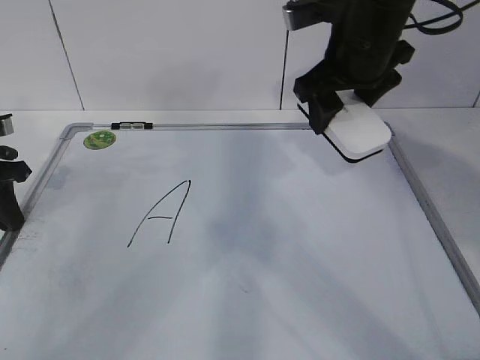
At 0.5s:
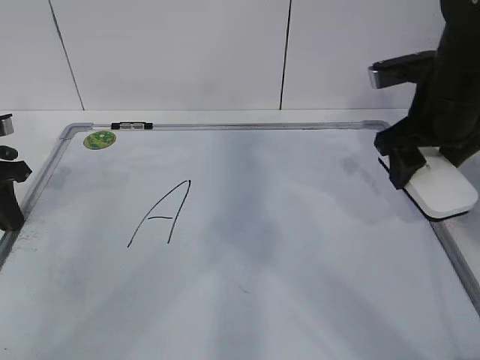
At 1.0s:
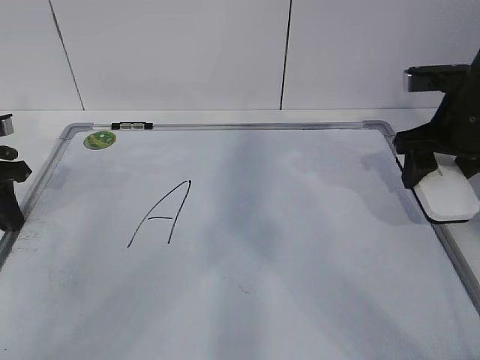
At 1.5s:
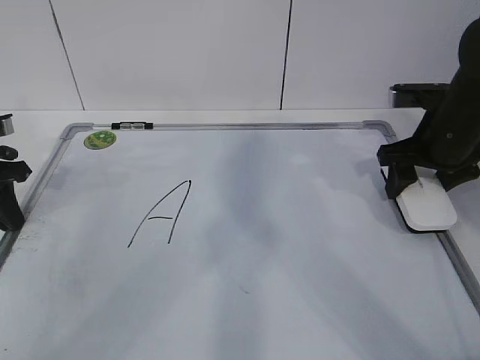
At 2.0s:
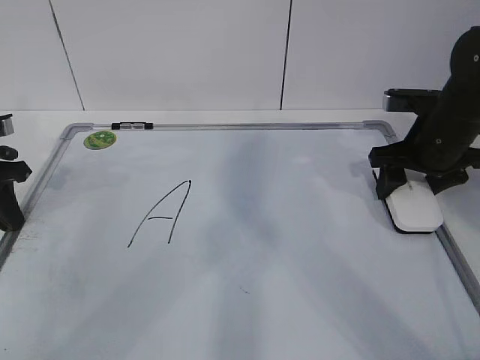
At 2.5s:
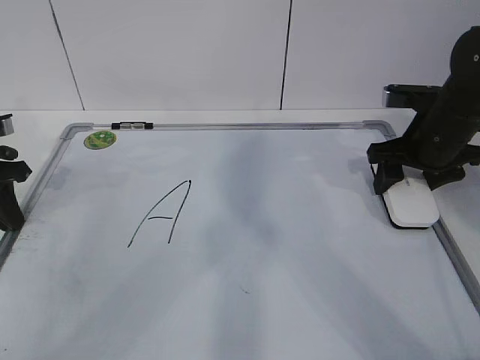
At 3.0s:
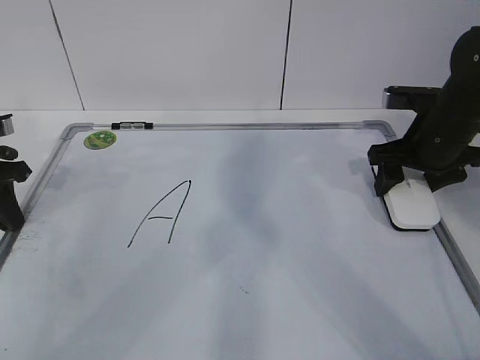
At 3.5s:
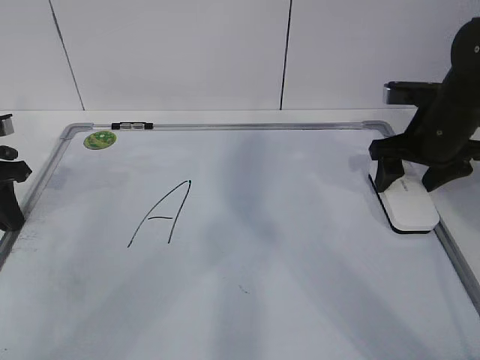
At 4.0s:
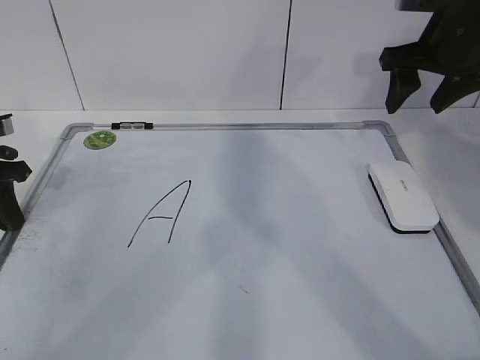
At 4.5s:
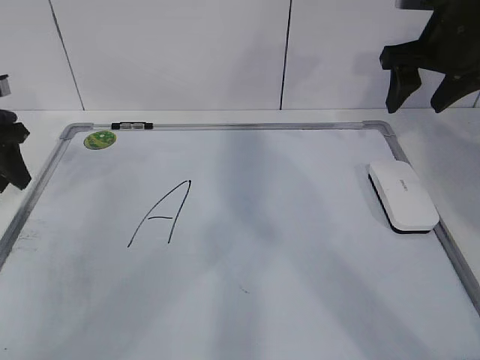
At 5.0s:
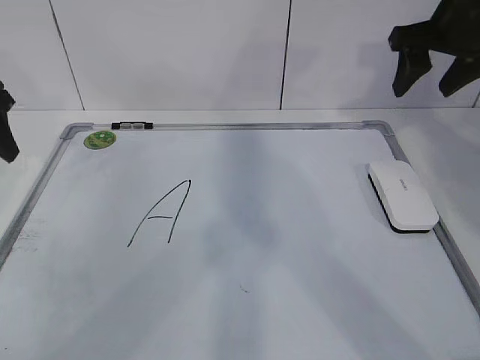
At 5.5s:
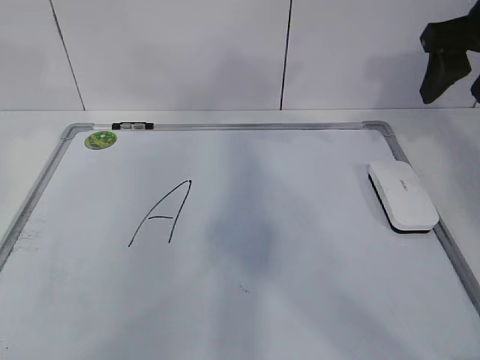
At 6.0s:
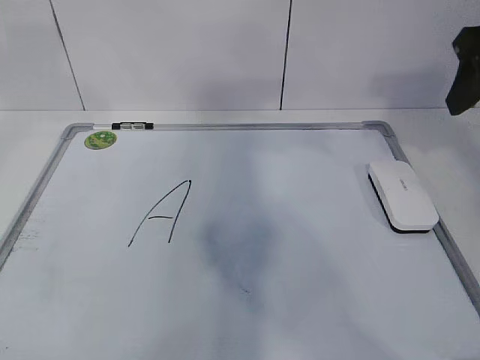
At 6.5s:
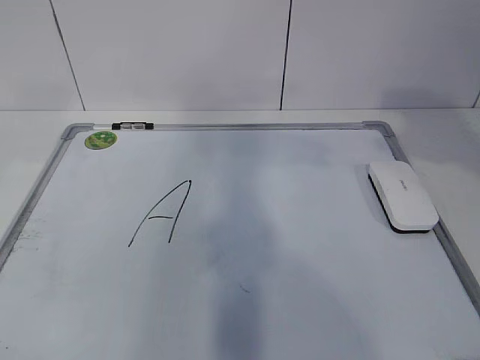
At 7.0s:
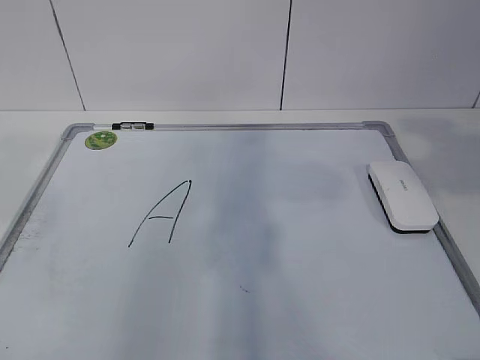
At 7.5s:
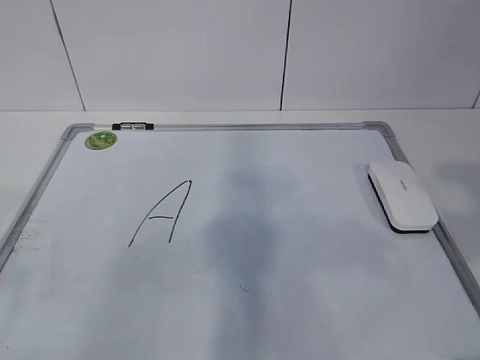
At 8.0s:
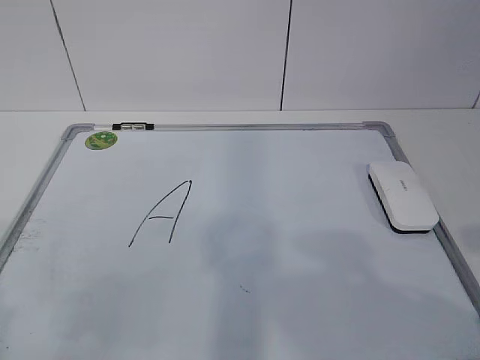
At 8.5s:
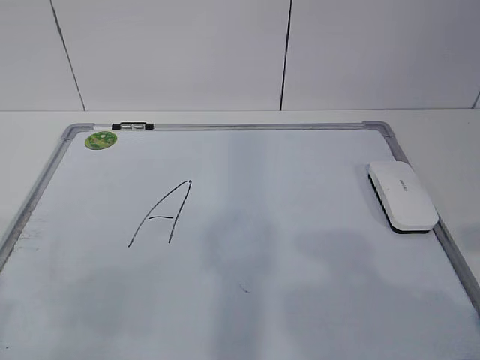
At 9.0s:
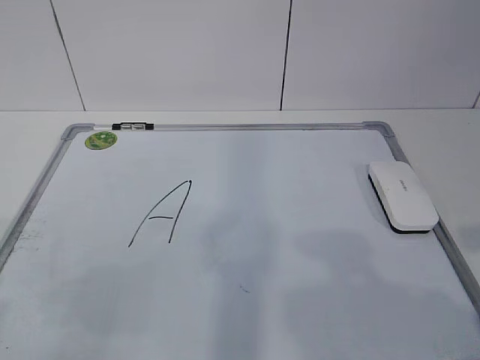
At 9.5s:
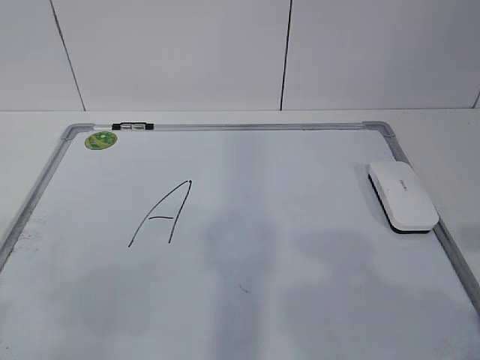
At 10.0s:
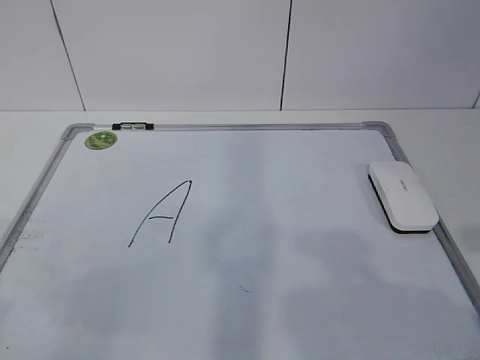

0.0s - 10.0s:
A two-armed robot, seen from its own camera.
Task of the whole recording: pick up the eraser on the blackboard and erase the letter "a".
0.0s - 2.0s: The right gripper heads to the right and downward, covering approximately 15 cm.
2.0s - 4.0s: The right gripper shifts approximately 10 cm upward, and opens, then closes once more.
4.0s - 6.0s: The left gripper moves upward, roughly 25 cm, and opens up. Meanwhile the right gripper travels backward and upward by roughly 15 cm.
6.0s - 8.0s: The left gripper travels backward and downward by some 25 cm; the right gripper is displaced backward by approximately 25 cm.

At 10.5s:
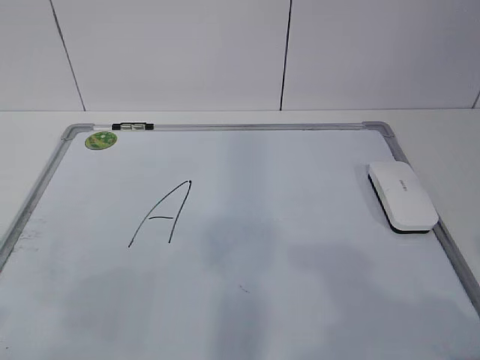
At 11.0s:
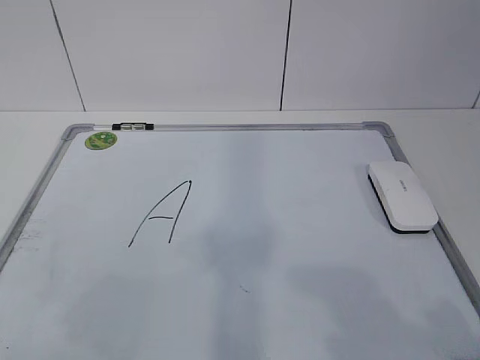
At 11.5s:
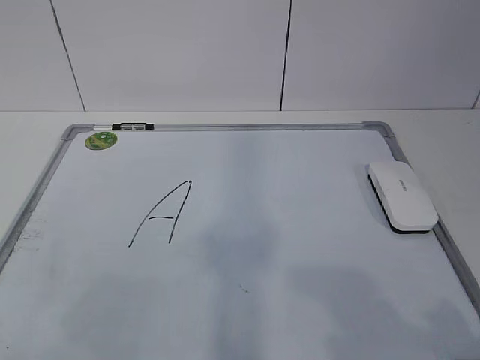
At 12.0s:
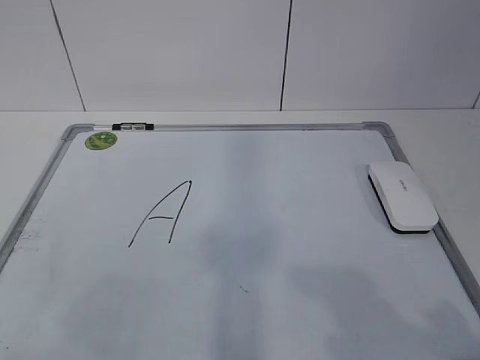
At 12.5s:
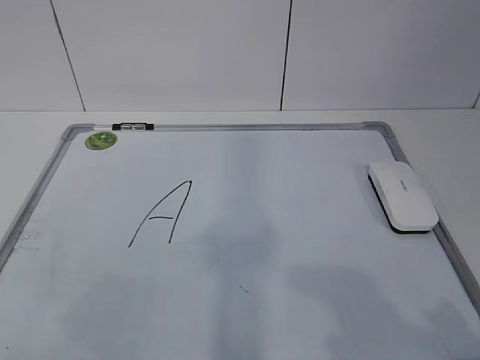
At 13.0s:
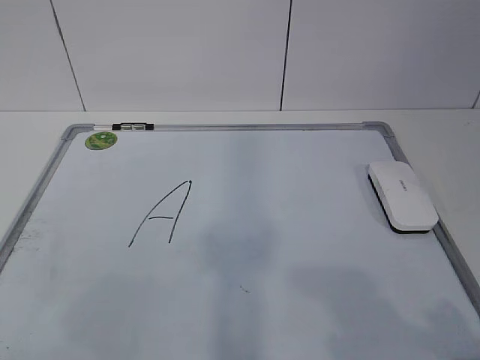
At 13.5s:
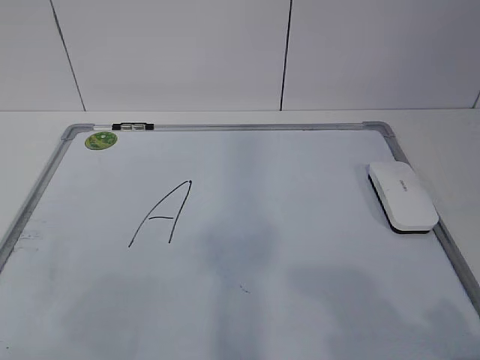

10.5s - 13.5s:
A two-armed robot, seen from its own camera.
Task of the whole recording: pick up the eraser on the blackboard and erase the letter "a".
12.0s - 13.5s: The two grippers keep their place.
